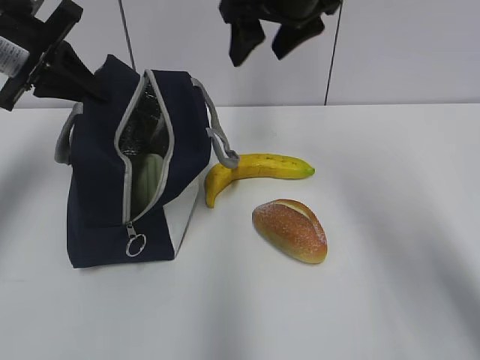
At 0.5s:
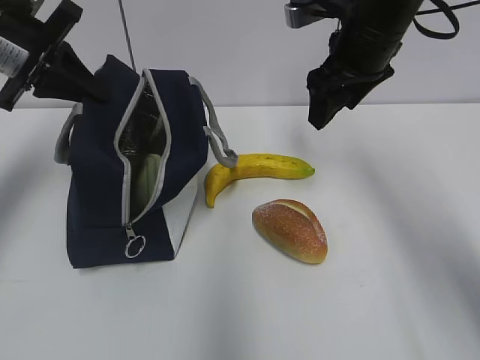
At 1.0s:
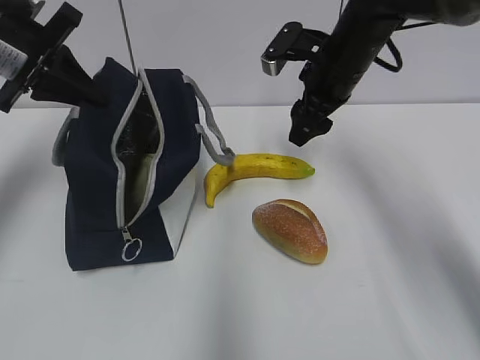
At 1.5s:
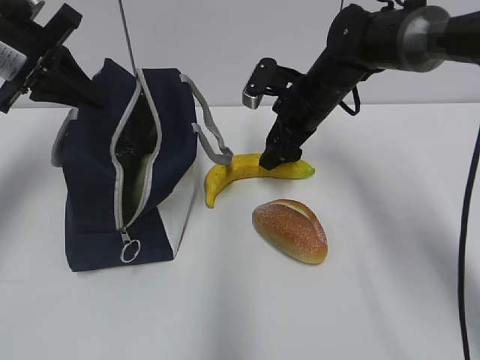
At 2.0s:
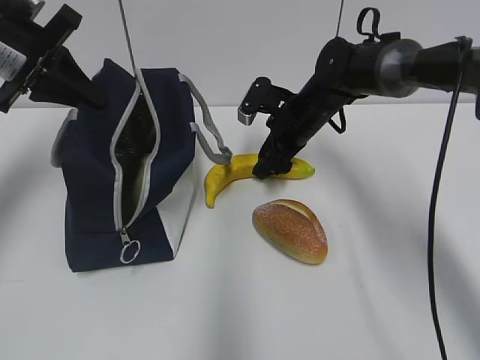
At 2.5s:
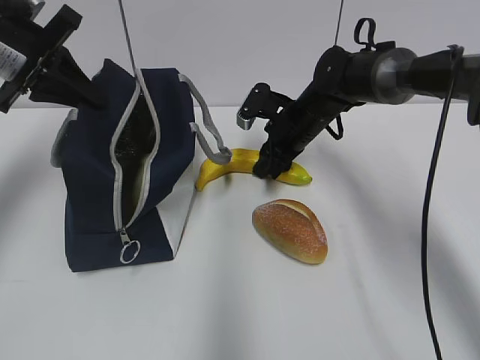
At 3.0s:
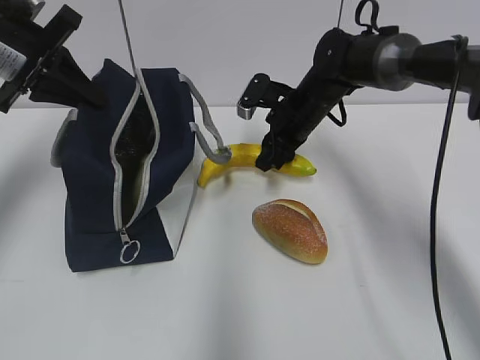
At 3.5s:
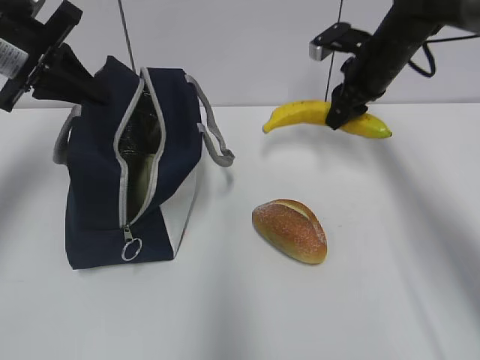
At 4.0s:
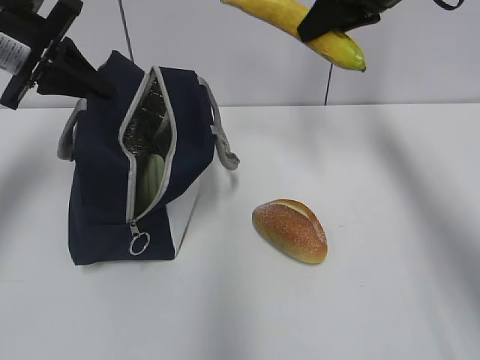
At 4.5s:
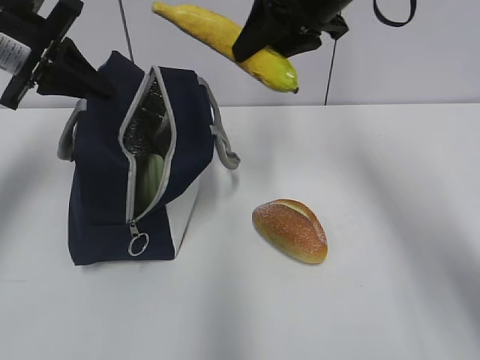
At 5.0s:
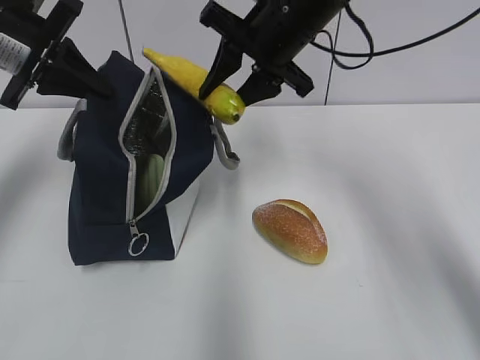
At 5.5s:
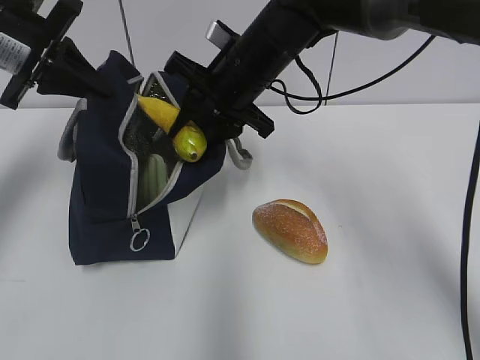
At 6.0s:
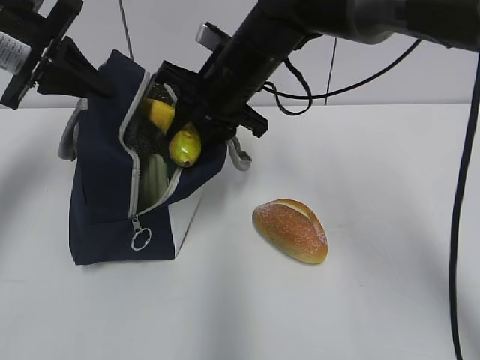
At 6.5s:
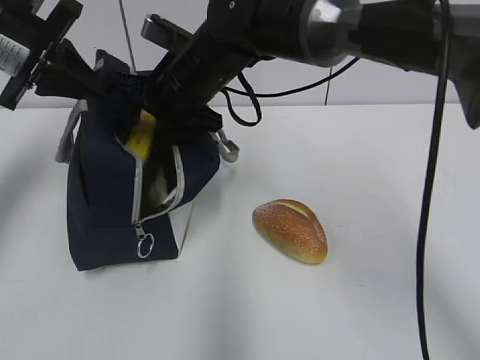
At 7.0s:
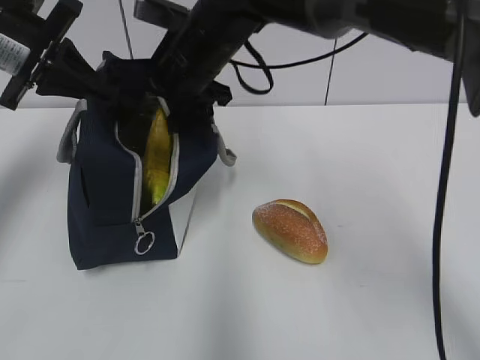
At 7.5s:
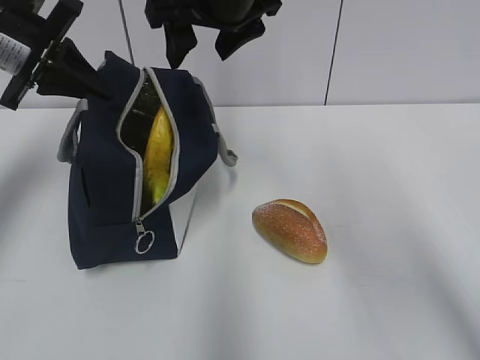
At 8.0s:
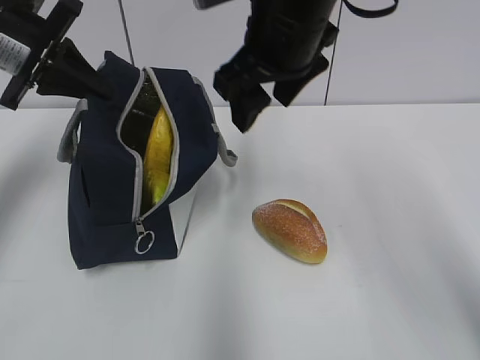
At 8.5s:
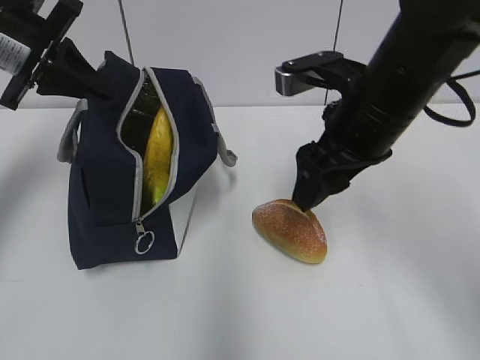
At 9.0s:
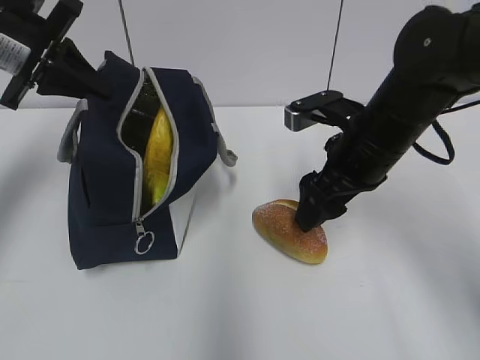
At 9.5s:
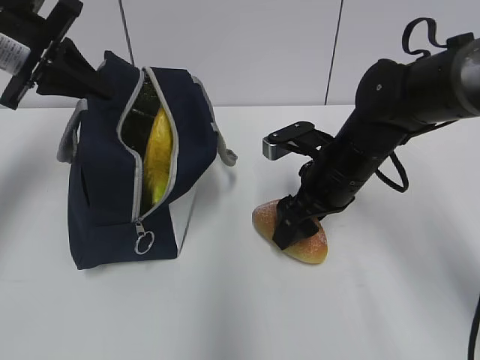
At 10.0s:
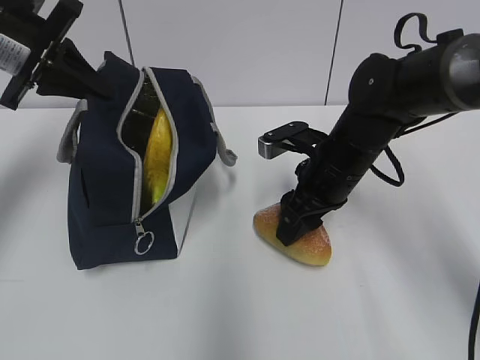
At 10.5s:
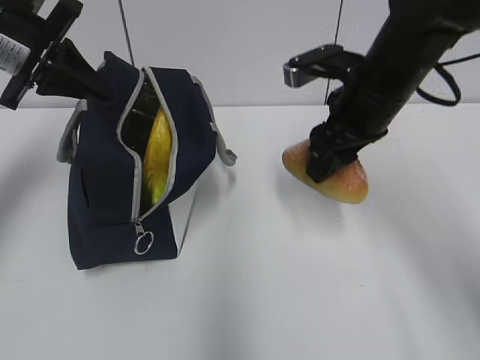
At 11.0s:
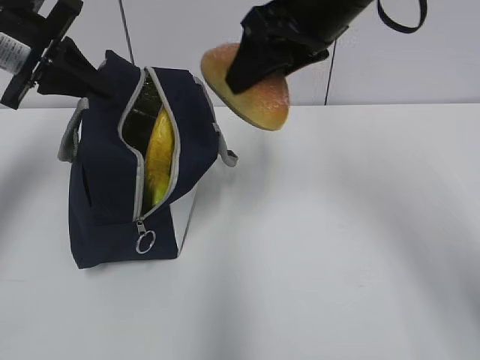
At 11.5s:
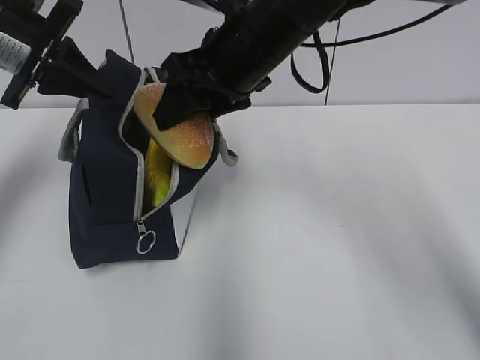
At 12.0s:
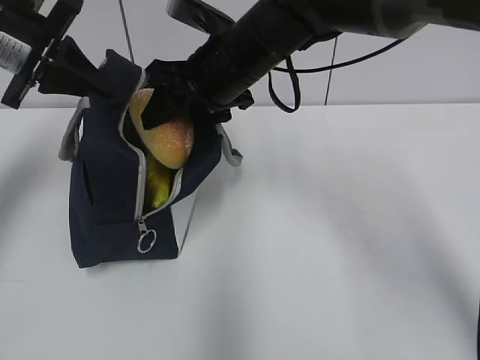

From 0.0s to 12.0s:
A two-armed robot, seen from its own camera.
From 0.0s to 2.0s: The right gripper shifts some 20 cm downward.
From 2.0s to 4.0s: The right gripper travels upward by about 20 cm, and closes.
From 4.0s to 6.0s: The right gripper shifts roughly 20 cm to the left and downward.
From 6.0s to 8.0s: The right gripper heads upward and backward, covering some 10 cm, and opens its fingers.
From 8.0s to 10.0s: The right gripper heads downward, covering approximately 15 cm.
From 10.0s to 12.0s: The right gripper shifts some 15 cm to the left and upward.

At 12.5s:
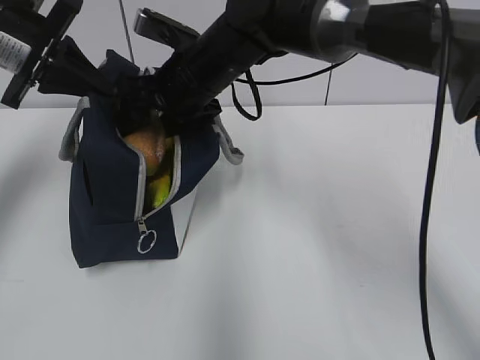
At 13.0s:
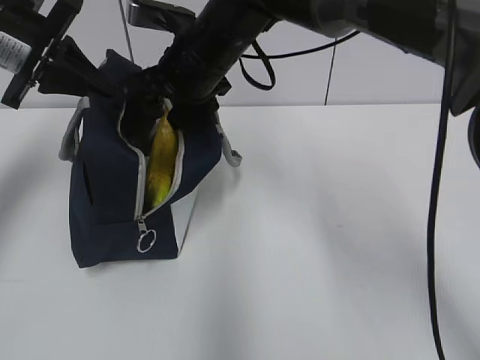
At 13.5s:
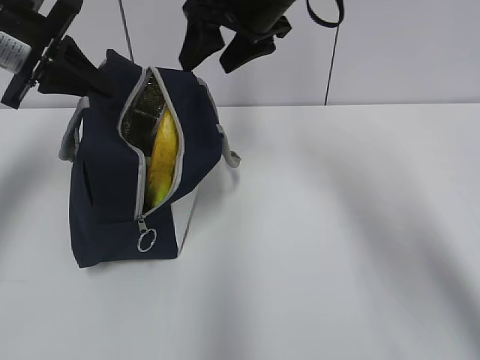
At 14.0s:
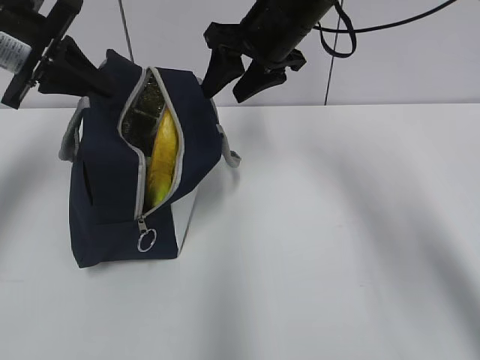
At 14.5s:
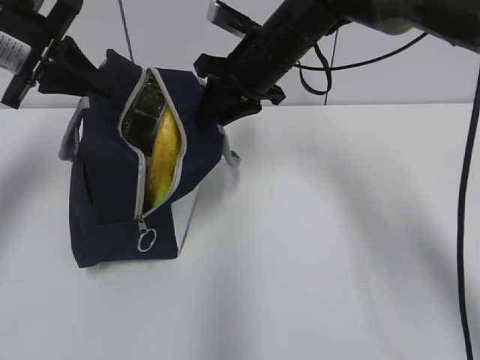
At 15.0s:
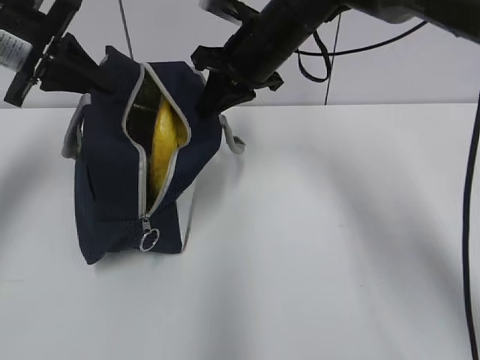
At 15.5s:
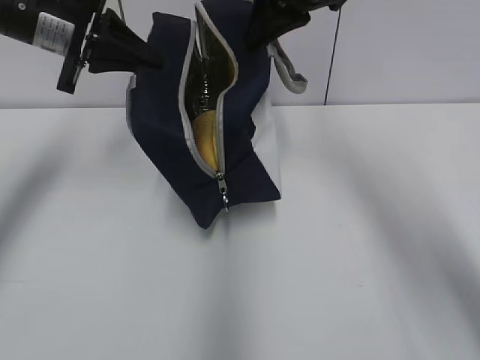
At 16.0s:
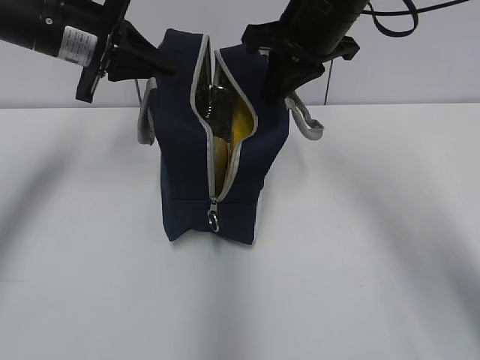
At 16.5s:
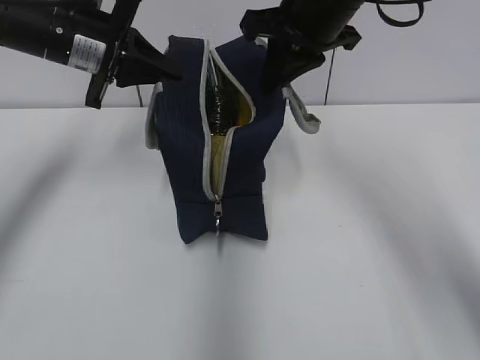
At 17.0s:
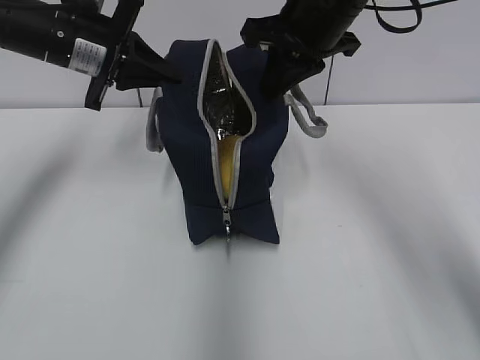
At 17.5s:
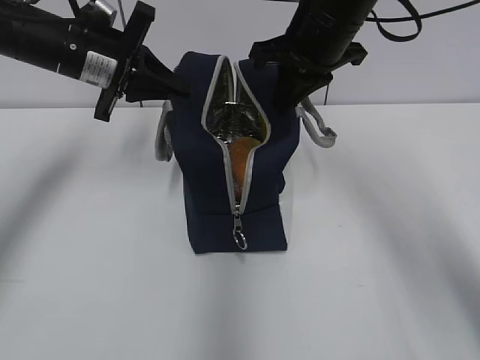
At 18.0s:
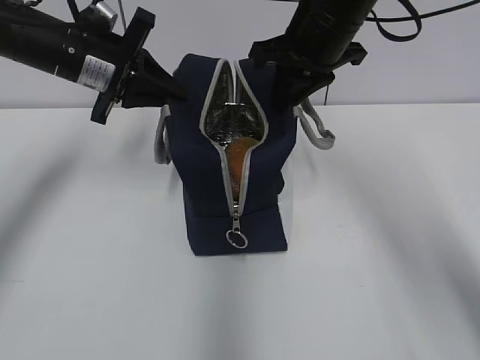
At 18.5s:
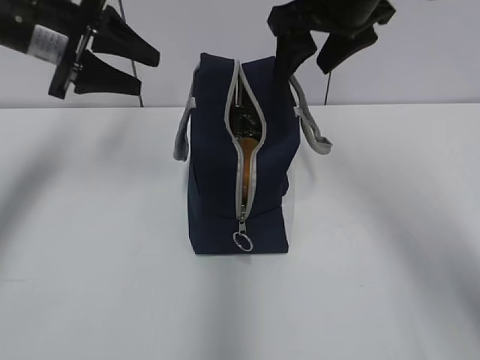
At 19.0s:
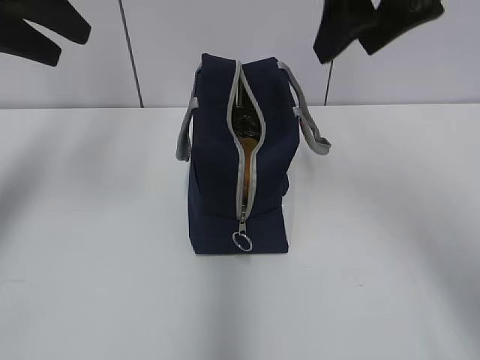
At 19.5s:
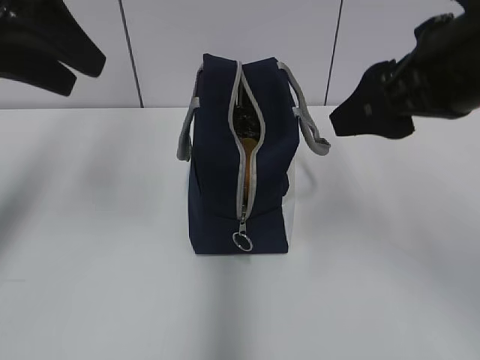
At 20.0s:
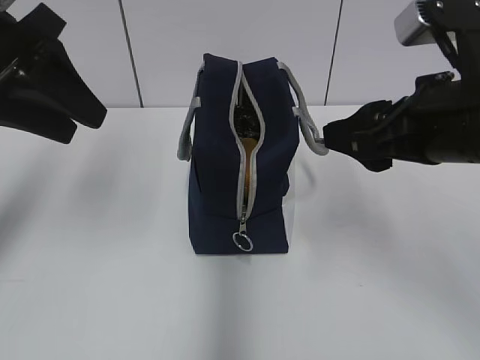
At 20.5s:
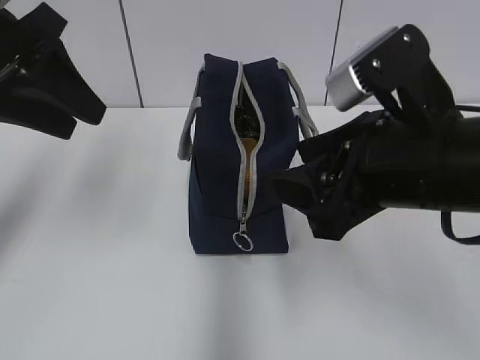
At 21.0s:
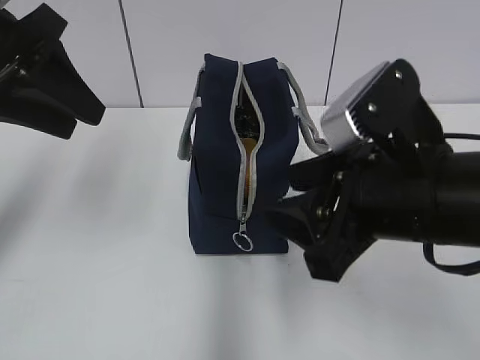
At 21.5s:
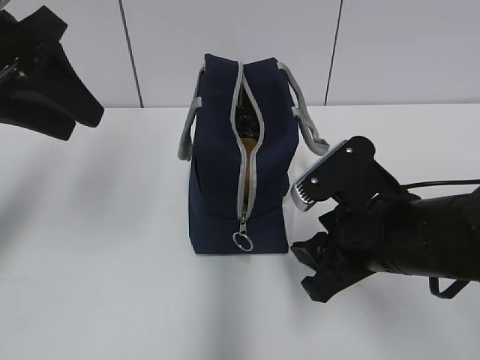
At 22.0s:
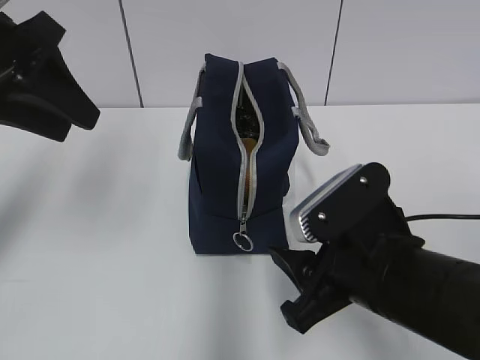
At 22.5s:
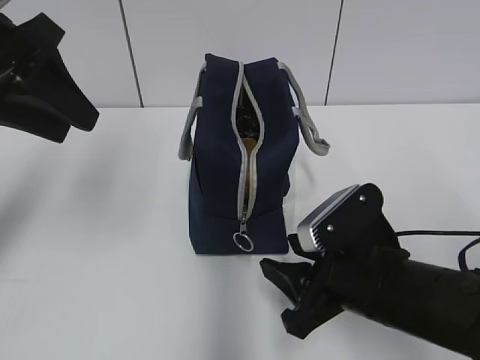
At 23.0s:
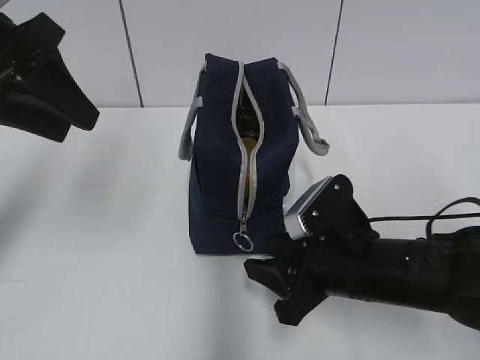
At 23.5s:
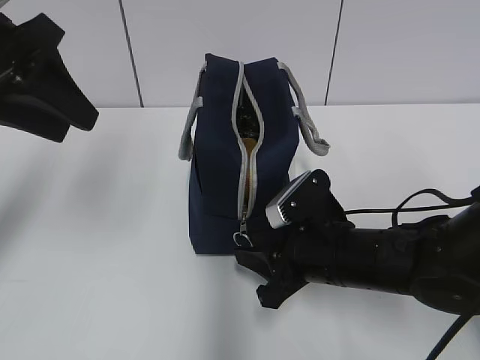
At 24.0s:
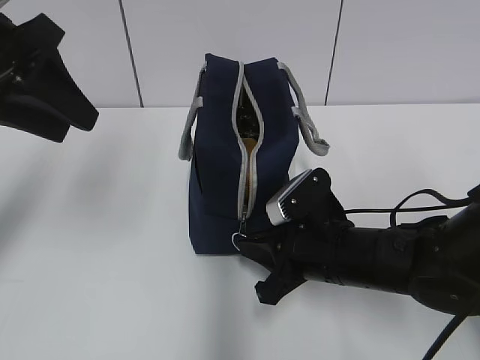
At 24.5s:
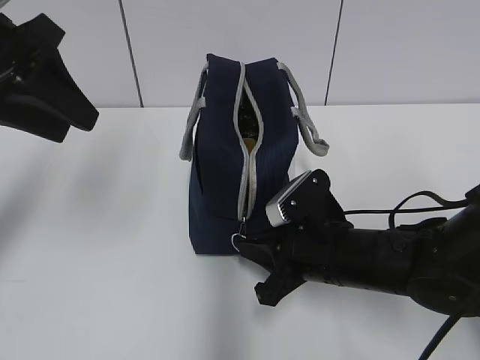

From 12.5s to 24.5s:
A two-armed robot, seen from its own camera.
From 12.5s to 14.5s: The right gripper travels to the right by approximately 10 cm, and closes its fingers.
From 14.5s to 16.5s: The right gripper is displaced upward and backward by about 10 cm, while the left gripper is displaced to the right by about 5 cm.
From 16.5s to 18.5s: The right gripper opens its fingers. Meanwhile the left gripper opens.
From 18.5s to 20.5s: The right gripper is displaced backward and downward by approximately 20 cm, while the left gripper heads backward, covering approximately 10 cm.
From 20.5s to 22.5s: The right gripper goes some 15 cm downward.
From 22.5s to 24.5s: The right gripper is displaced forward by roughly 5 cm, and closes up.

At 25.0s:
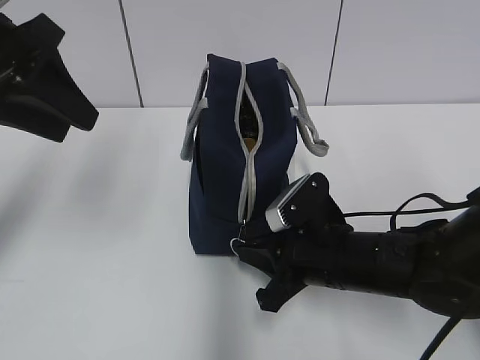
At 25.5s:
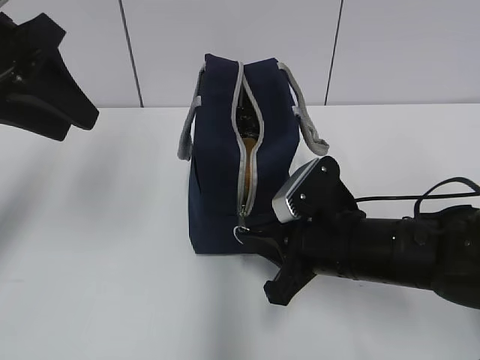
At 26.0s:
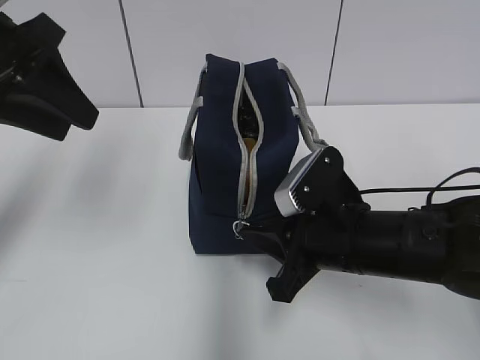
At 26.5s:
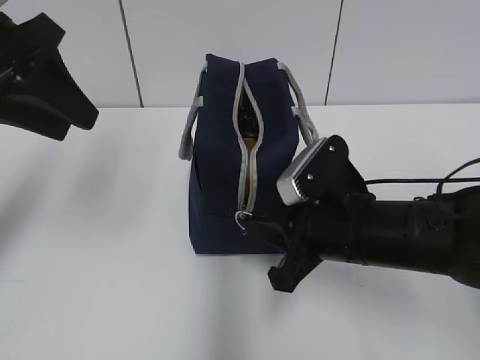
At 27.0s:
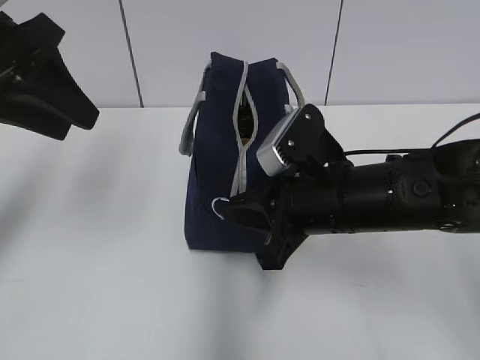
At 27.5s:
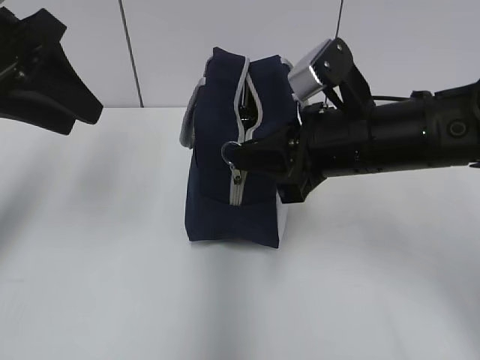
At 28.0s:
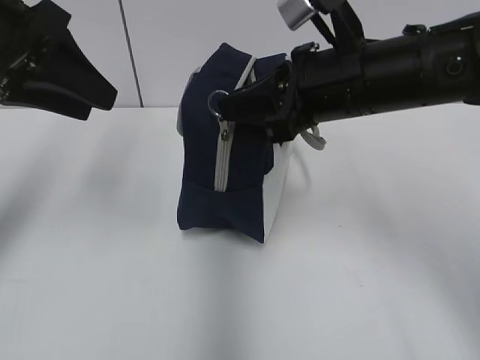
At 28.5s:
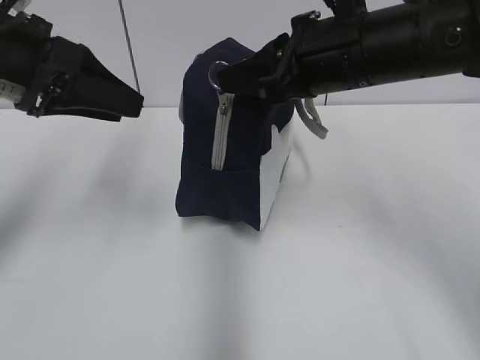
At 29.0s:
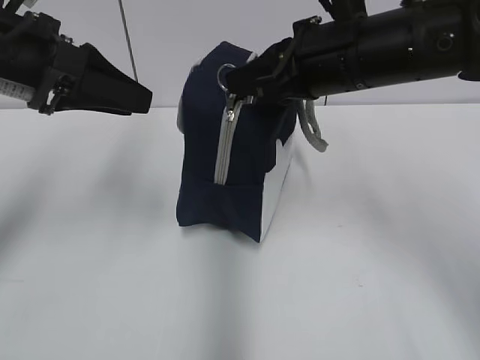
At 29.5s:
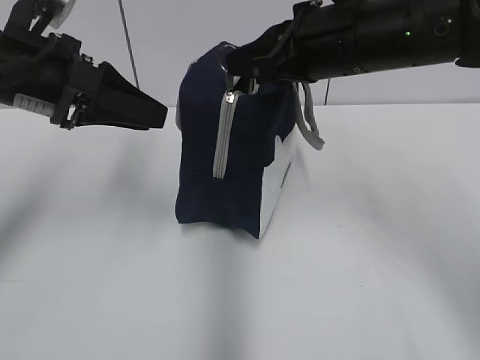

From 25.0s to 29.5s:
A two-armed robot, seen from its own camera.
From 25.0s to 27.0s: The right gripper travels upward by approximately 10 cm.
From 27.0s to 29.5s: The right gripper heads upward and forward, covering approximately 15 cm; the left gripper moves some 5 cm.
